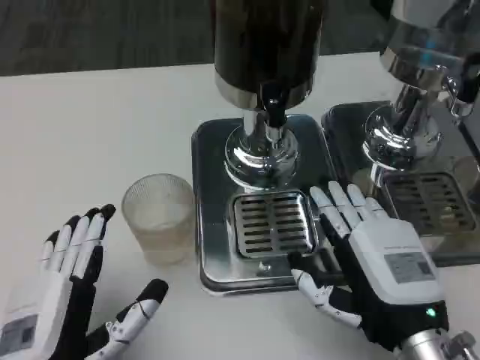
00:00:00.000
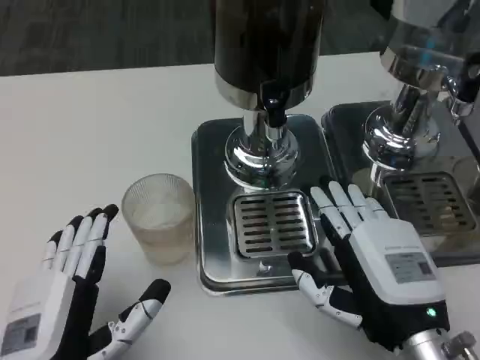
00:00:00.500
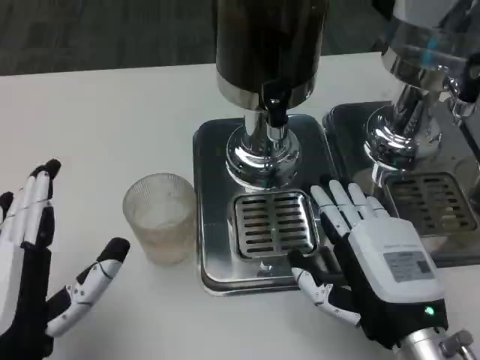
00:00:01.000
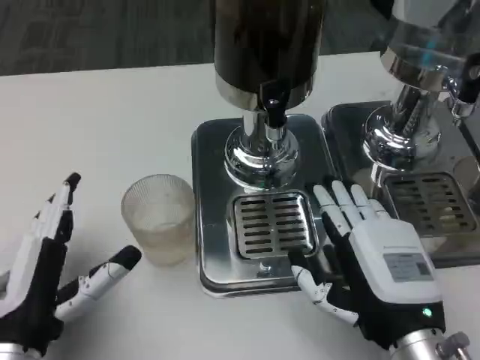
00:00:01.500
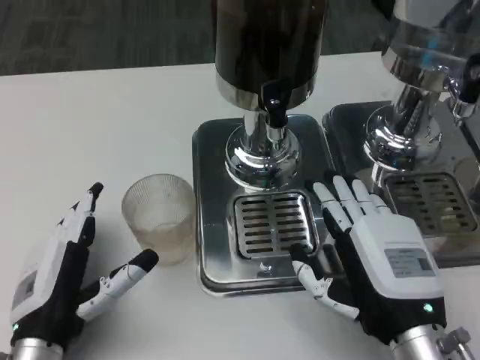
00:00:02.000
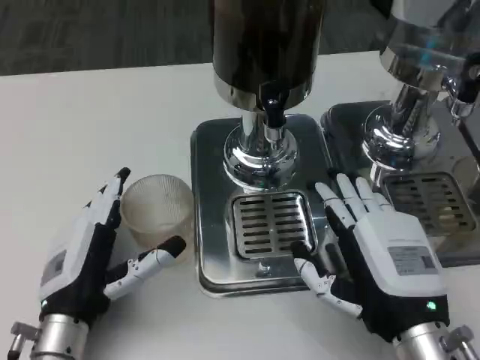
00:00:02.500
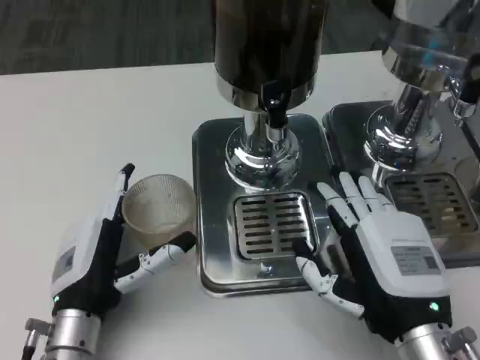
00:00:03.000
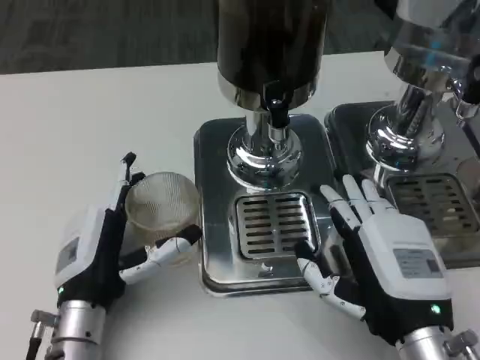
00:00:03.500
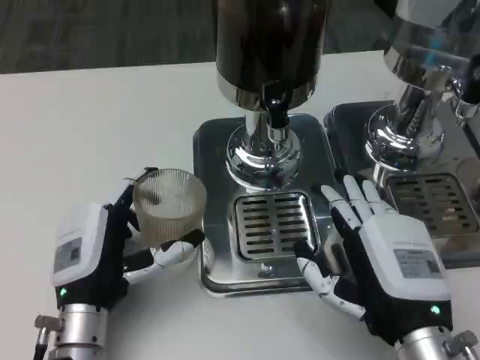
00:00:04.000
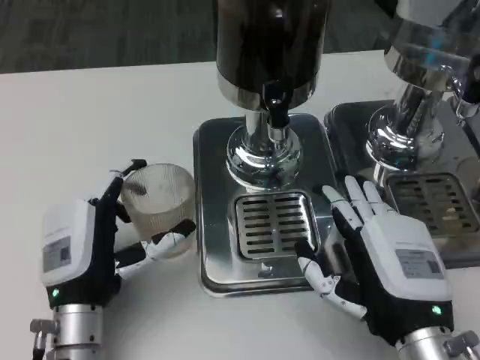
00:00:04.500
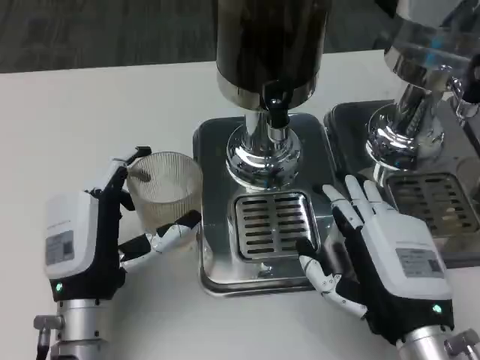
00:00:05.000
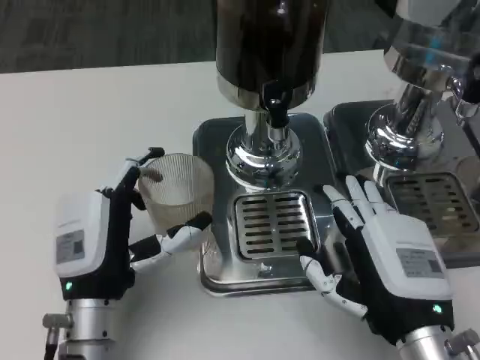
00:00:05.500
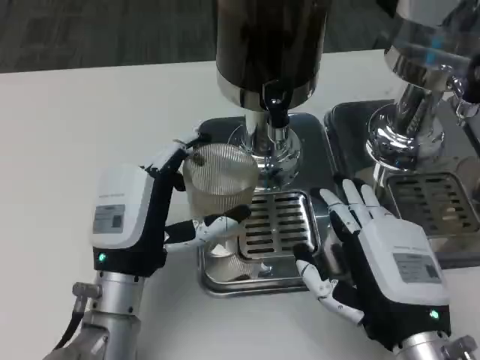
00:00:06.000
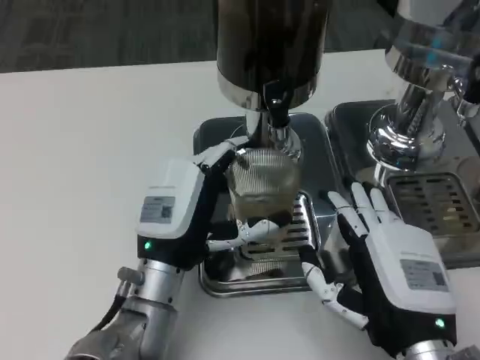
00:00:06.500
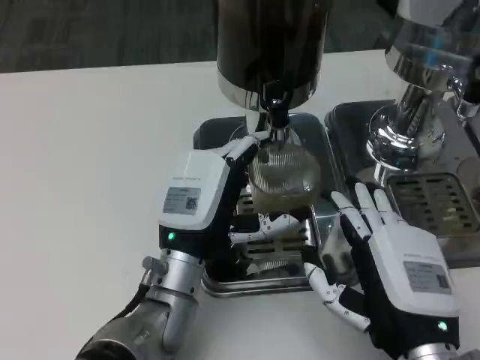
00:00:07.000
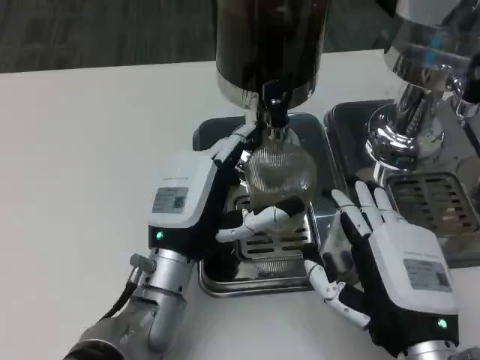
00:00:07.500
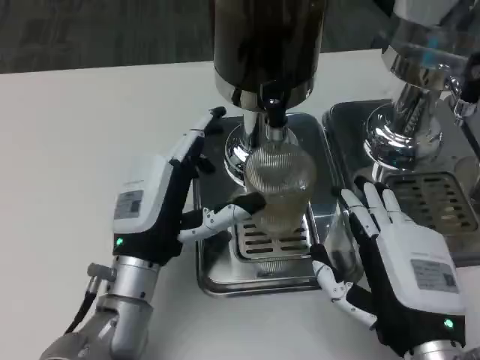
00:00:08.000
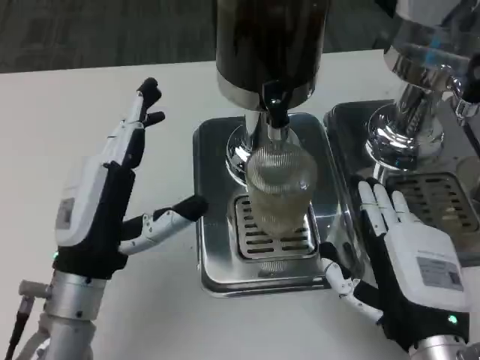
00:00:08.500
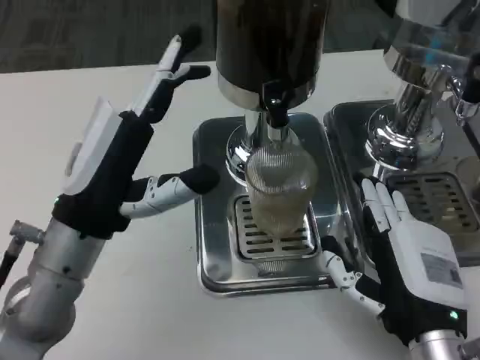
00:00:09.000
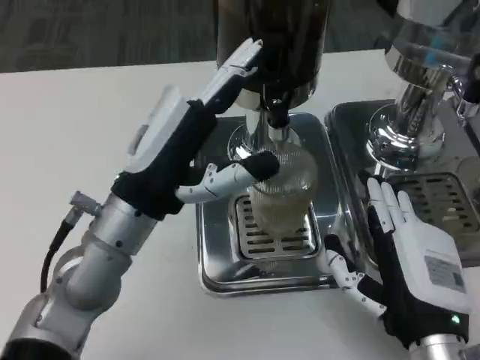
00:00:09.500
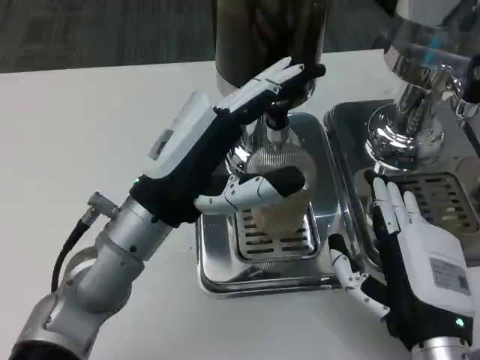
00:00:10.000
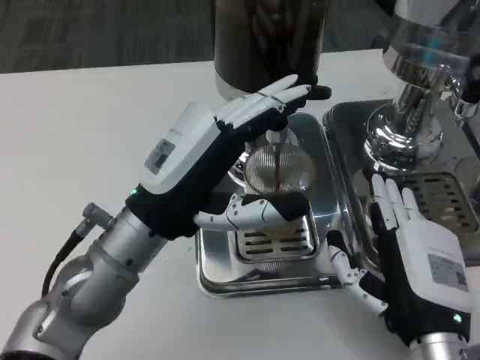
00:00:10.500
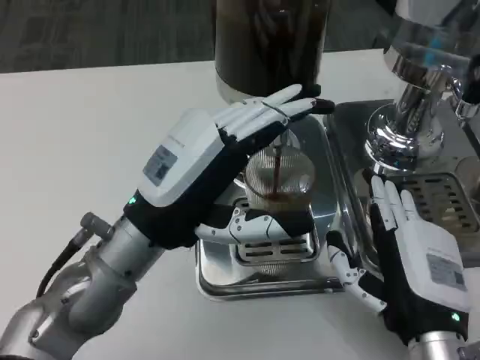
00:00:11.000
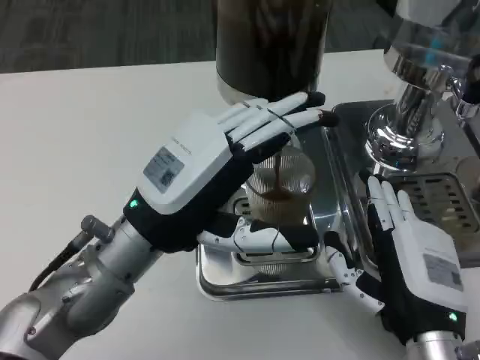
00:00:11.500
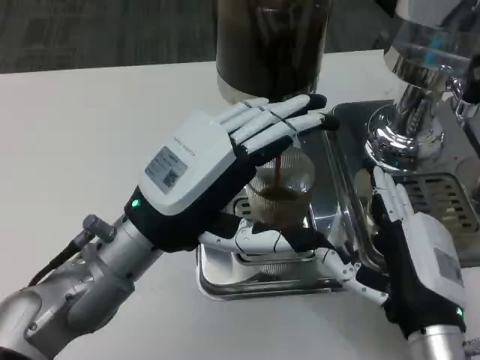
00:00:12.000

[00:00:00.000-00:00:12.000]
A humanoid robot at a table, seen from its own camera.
Task of the whole recording: Grasp the cup under the faucet to collect the drink, then remove the cup.
00:00:00.000 to 00:00:02.000: The left hand heads forward, covering approximately 5 cm.
00:00:02.000 to 00:00:04.000: The left hand ends up roughly 5 cm from where it was.
00:00:08.000 to 00:00:10.000: The left hand shifts roughly 10 cm upward.

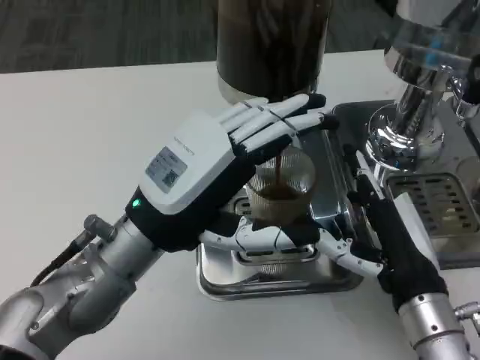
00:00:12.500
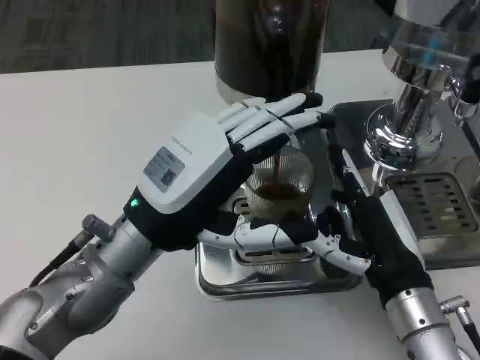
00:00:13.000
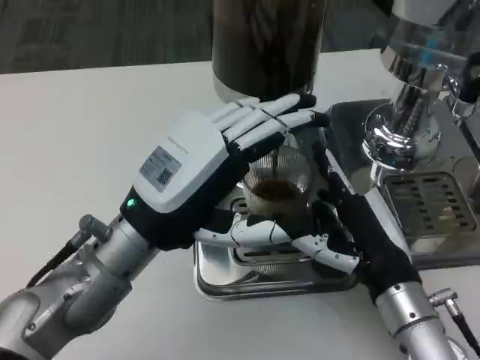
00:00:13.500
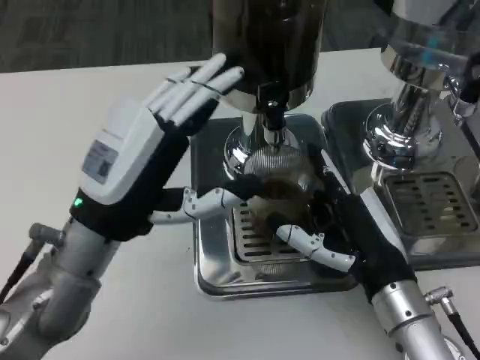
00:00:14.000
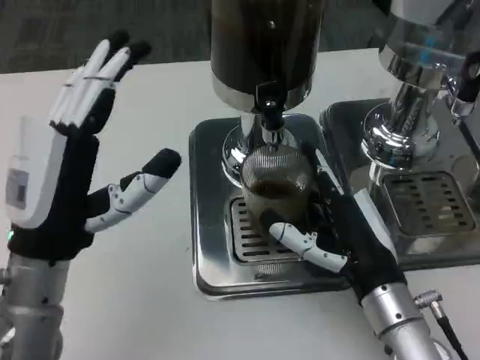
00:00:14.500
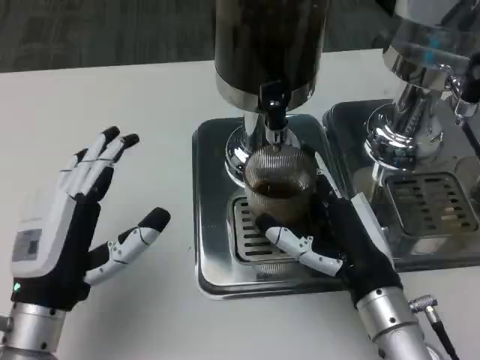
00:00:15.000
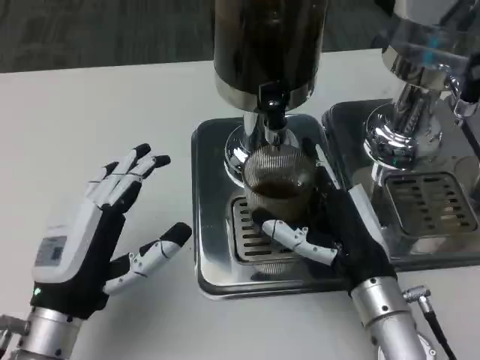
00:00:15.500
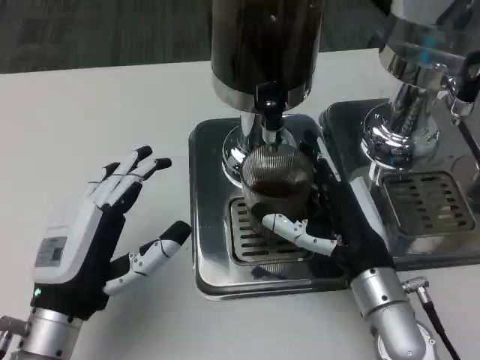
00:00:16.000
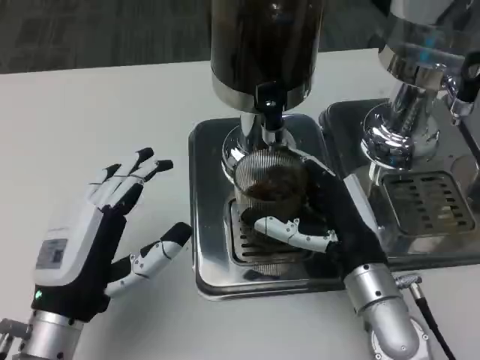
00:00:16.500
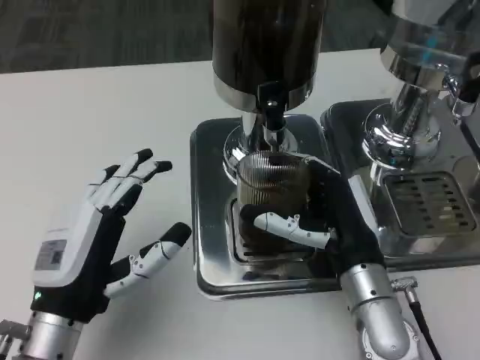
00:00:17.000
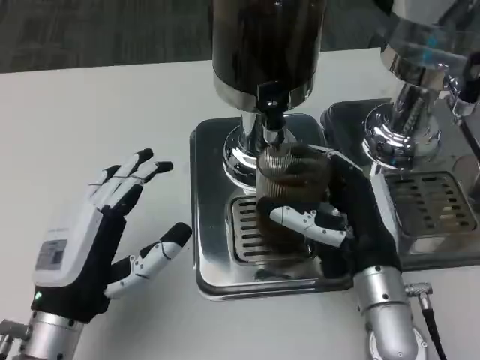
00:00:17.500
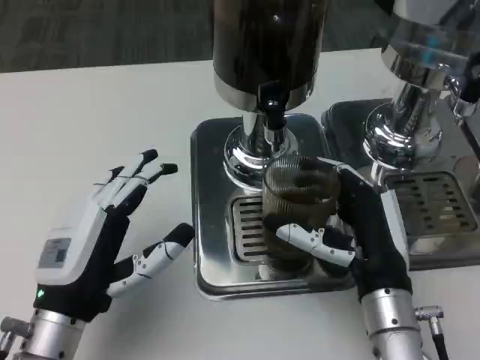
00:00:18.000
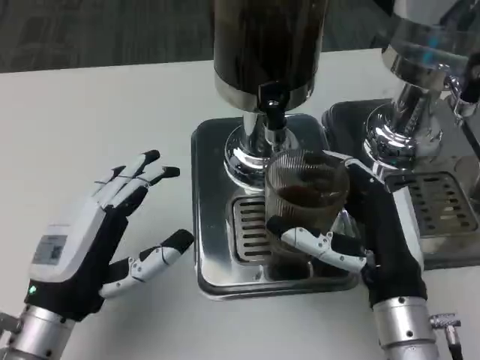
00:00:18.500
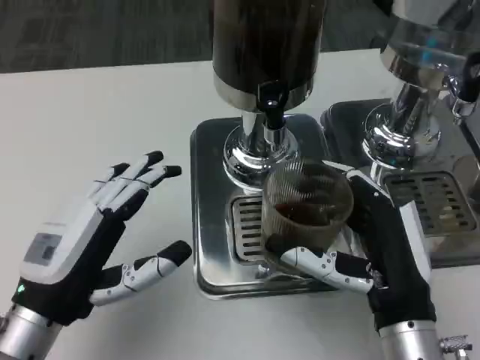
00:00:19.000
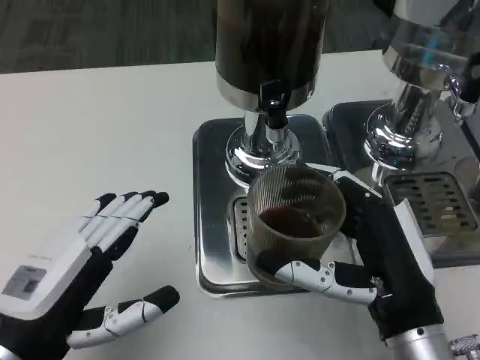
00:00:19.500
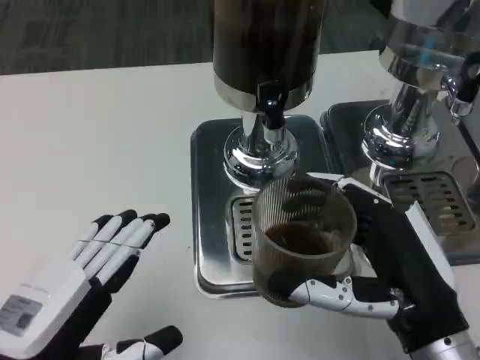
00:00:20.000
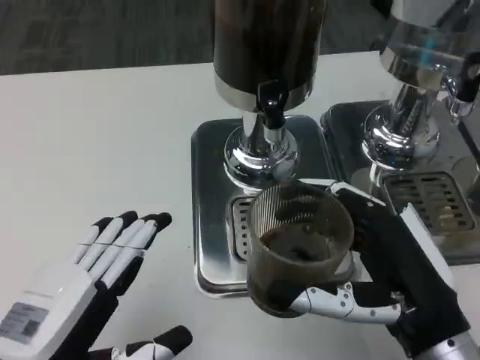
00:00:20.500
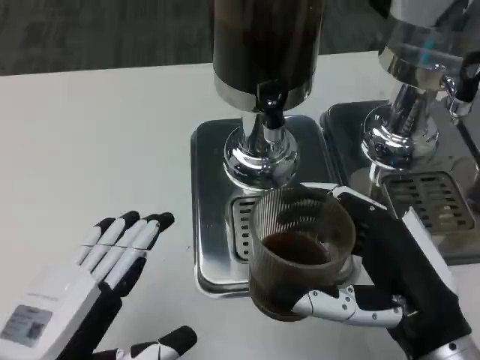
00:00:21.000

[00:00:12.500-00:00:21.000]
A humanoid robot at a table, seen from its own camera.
Task of the whole recording: Grasp the cup under the faucet to collect the drink, then remove the cup.
00:00:12.500 to 00:00:14.500: The left hand moves to the left, roughly 5 cm.
00:00:14.500 to 00:00:16.500: The left hand moves about 5 cm.
00:00:16.500 to 00:00:19.000: The right hand shifts some 5 cm backward.
00:00:19.000 to 00:00:21.000: The left hand travels backward by approximately 10 cm. The right hand ends up about 5 cm from where it was.

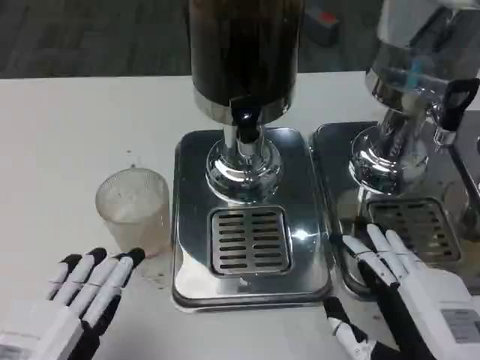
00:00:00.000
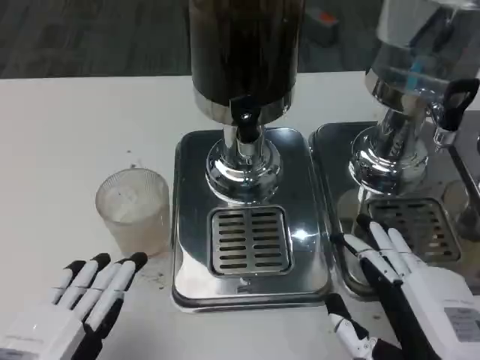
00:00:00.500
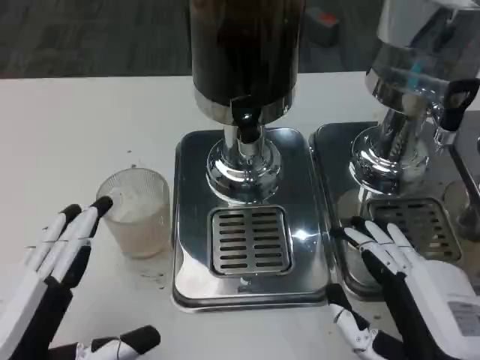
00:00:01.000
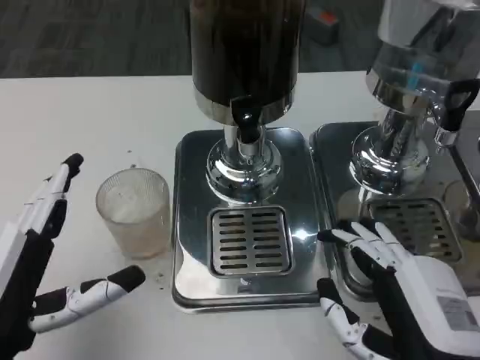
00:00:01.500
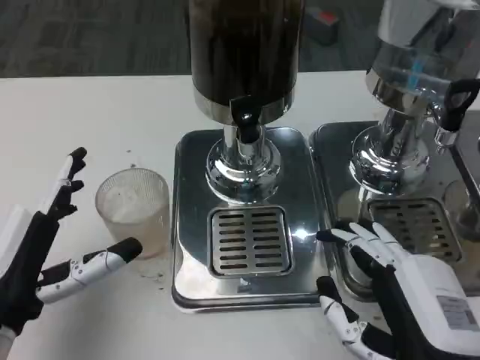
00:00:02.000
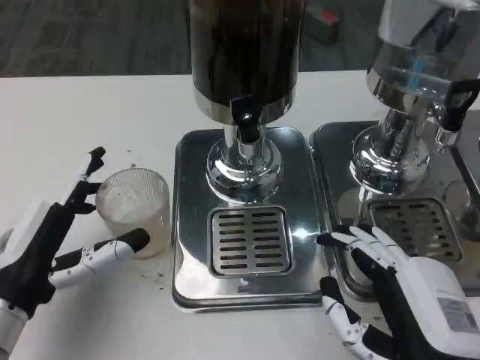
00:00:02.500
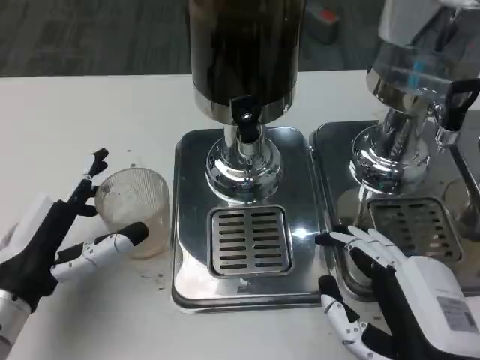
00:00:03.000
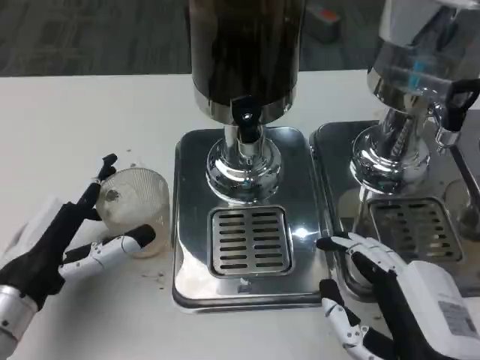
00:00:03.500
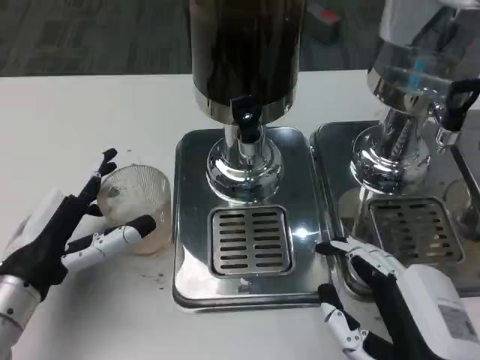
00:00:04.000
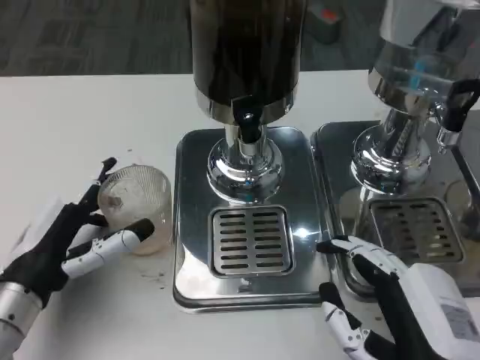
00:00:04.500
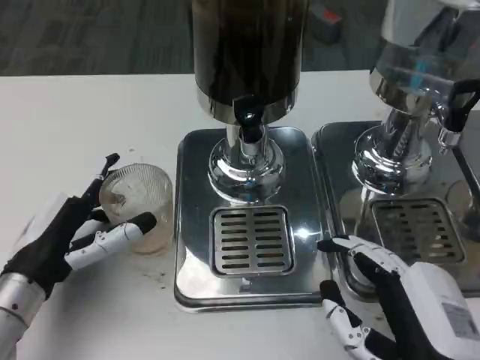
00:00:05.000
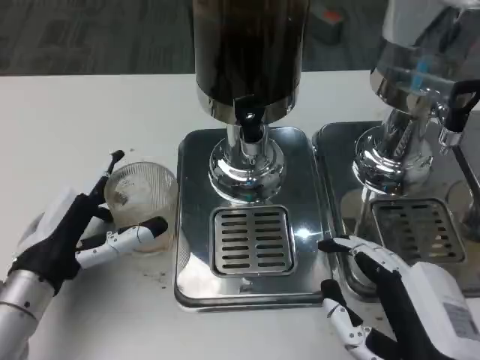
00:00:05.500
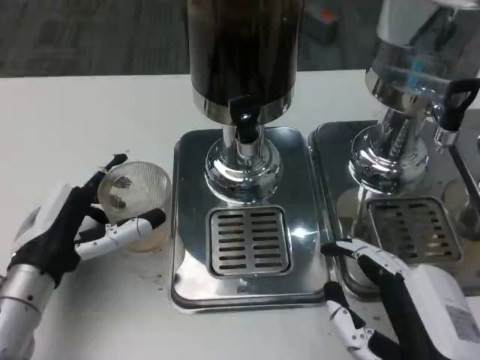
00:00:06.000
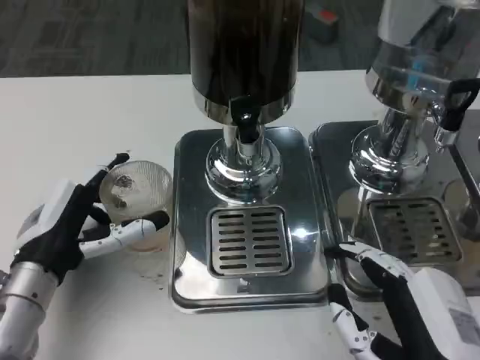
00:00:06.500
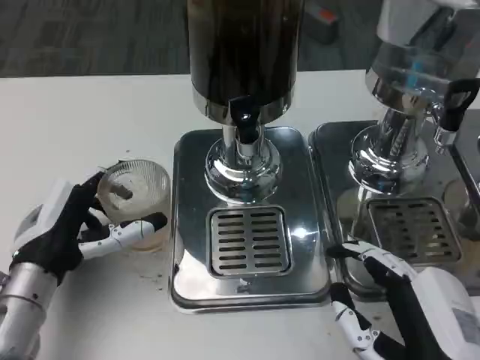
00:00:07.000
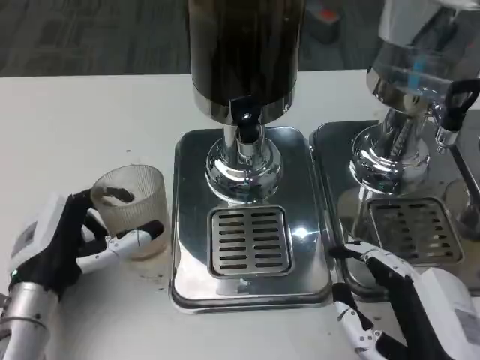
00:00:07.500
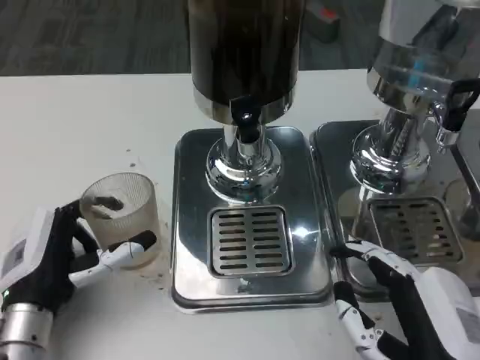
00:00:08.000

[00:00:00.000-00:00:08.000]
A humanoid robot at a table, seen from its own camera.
Task of the whole recording: Grasp the cup under the faucet to collect the drink, then remove the cup.
00:00:00.000 to 00:00:02.000: The left hand travels forward by some 10 cm.
00:00:02.000 to 00:00:04.000: The left hand is displaced forward by approximately 5 cm.
00:00:04.000 to 00:00:08.000: There are only small adjustments of the hands.
